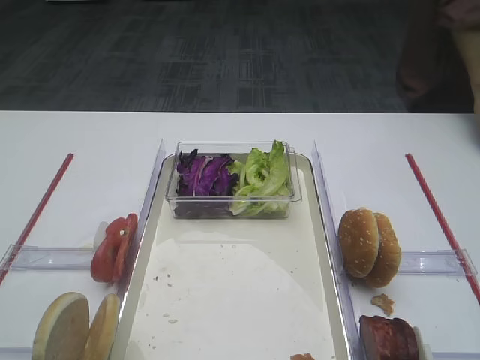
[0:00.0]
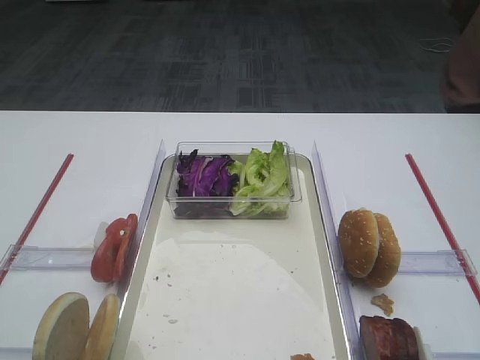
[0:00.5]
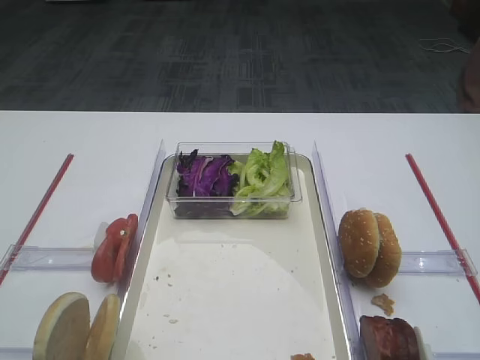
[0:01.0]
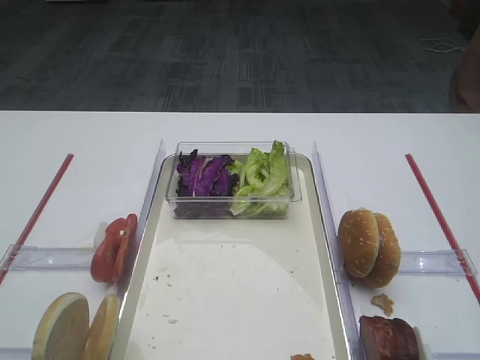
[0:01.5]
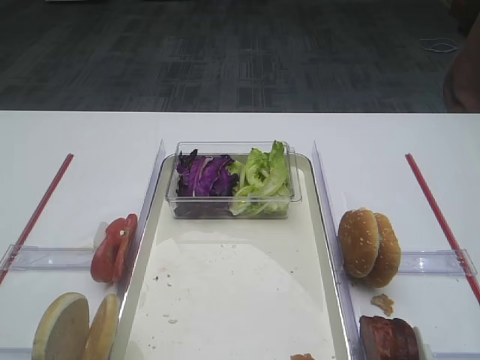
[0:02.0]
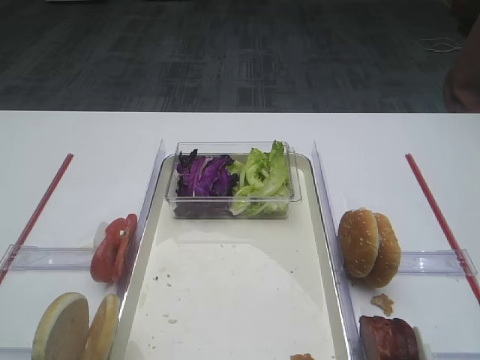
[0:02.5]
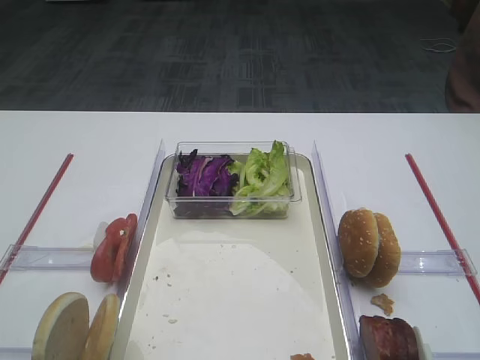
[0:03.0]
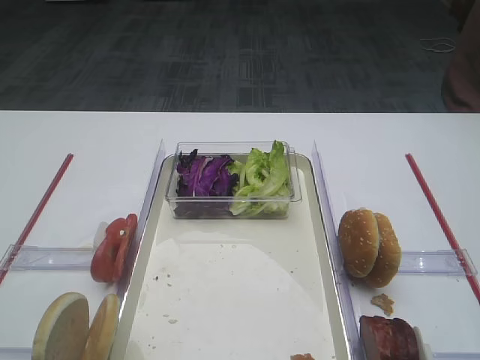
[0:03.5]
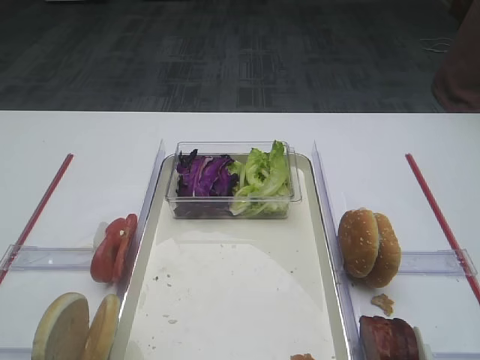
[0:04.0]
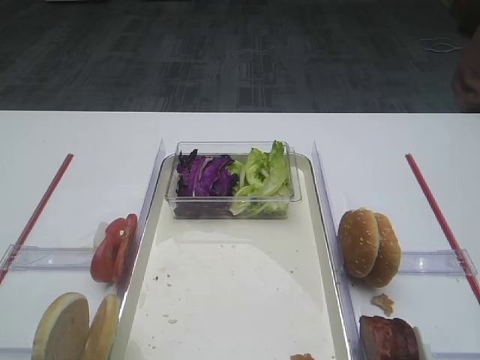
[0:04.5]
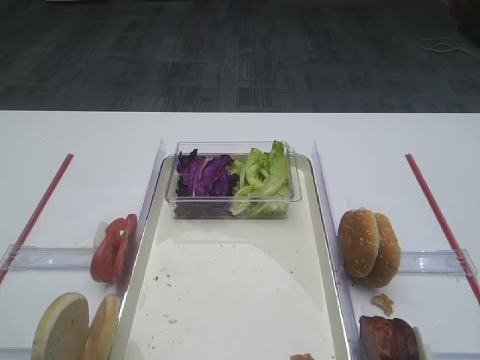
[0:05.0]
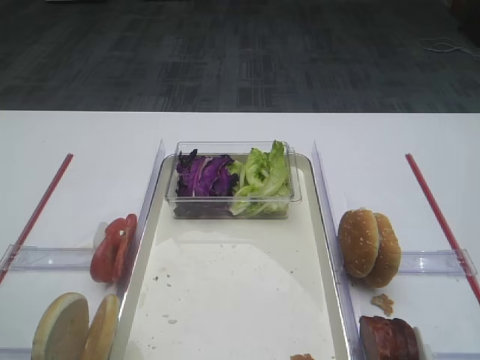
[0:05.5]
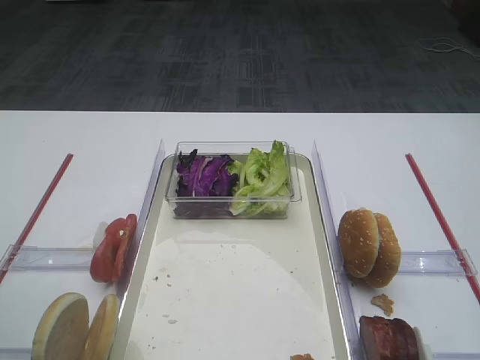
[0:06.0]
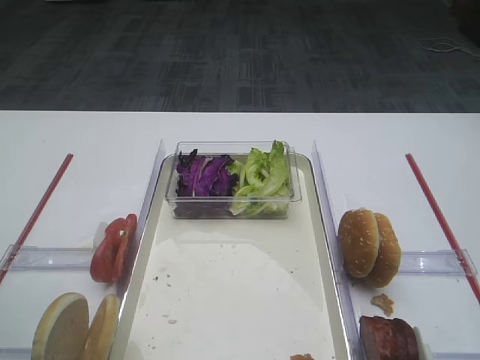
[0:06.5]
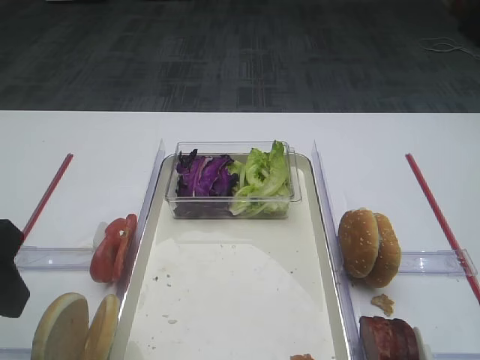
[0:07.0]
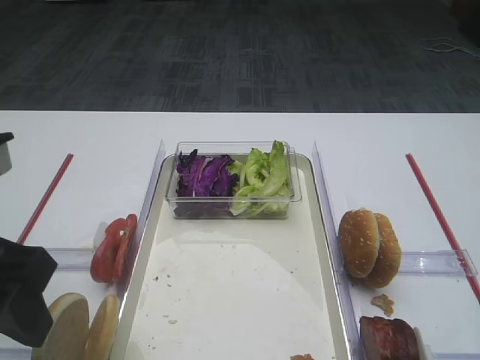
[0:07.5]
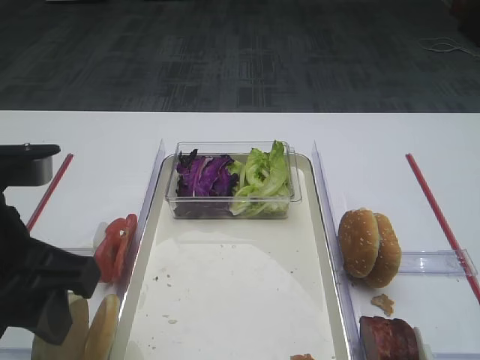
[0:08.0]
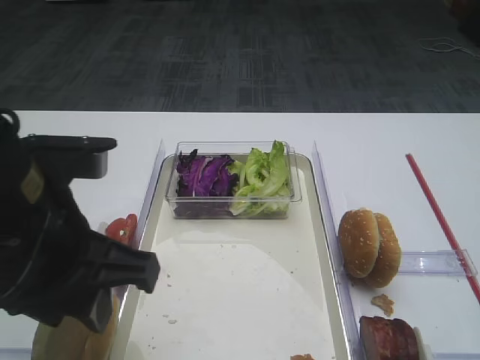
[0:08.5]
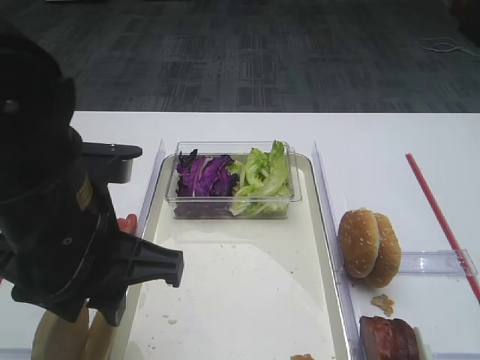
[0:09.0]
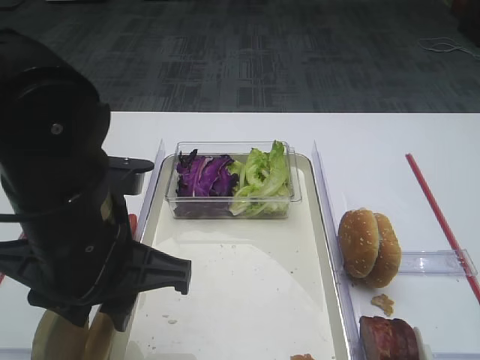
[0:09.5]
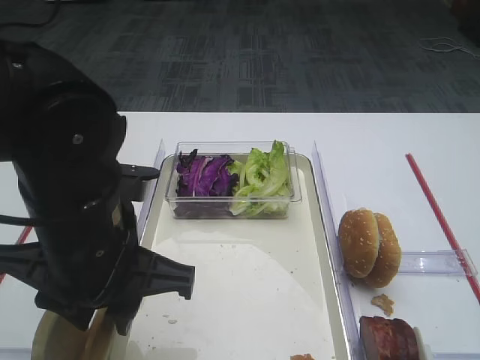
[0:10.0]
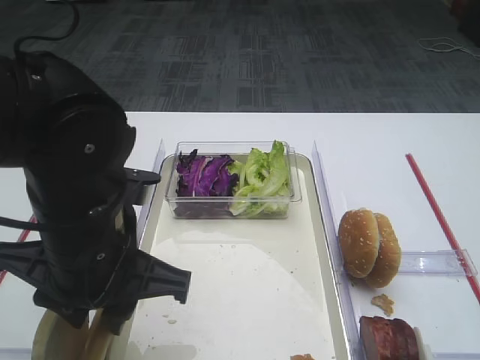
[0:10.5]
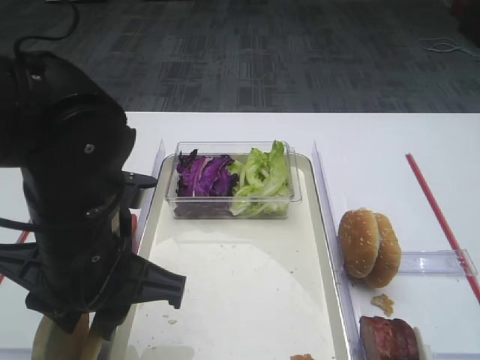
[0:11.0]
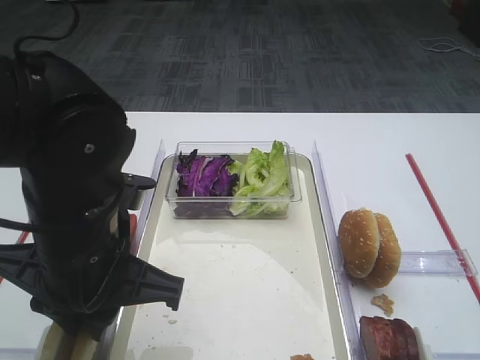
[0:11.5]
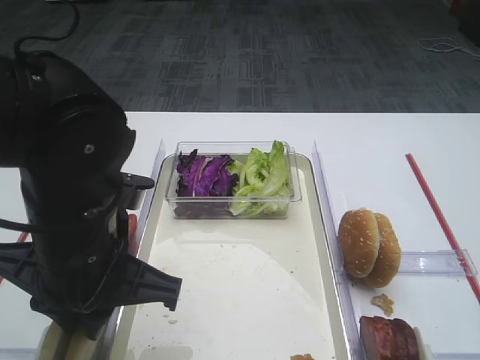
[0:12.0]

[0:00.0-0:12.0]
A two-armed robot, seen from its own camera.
0:06.0 to 0:08.0: The left gripper goes some 10 cm to the right.
0:08.0 to 0:10.0: The left gripper goes about 5 cm to the right.
0:10.0 to 0:12.0: The grippers stay close to where they were, moving slightly.

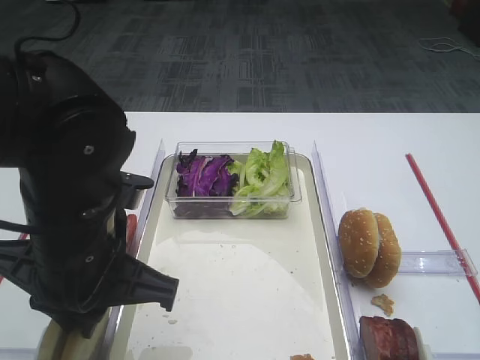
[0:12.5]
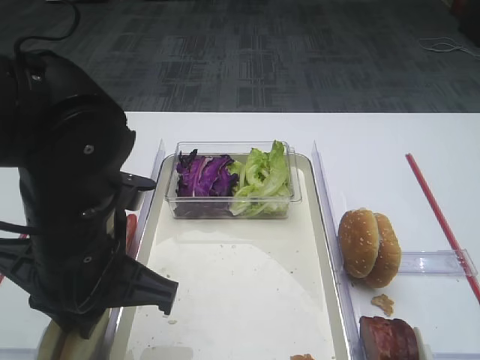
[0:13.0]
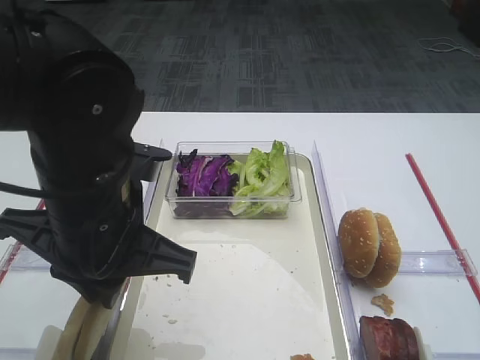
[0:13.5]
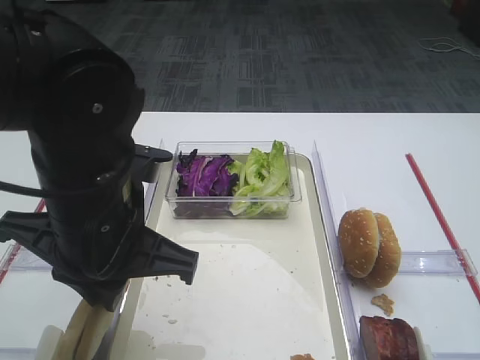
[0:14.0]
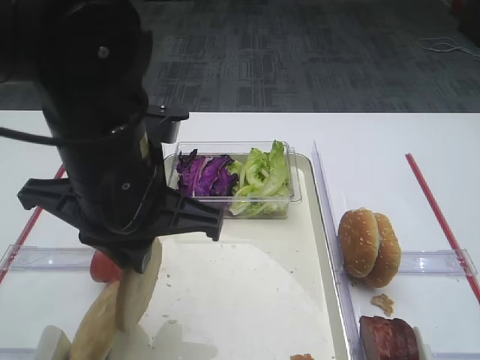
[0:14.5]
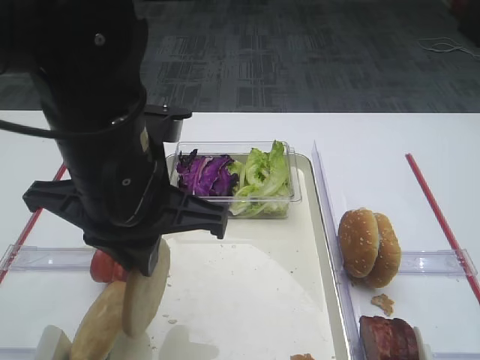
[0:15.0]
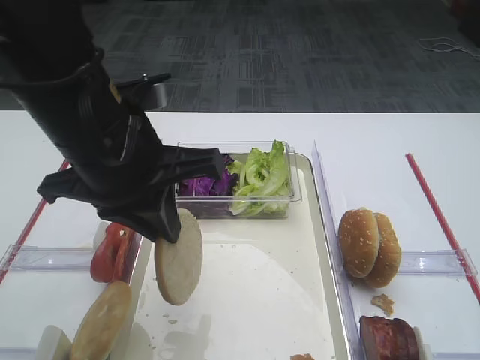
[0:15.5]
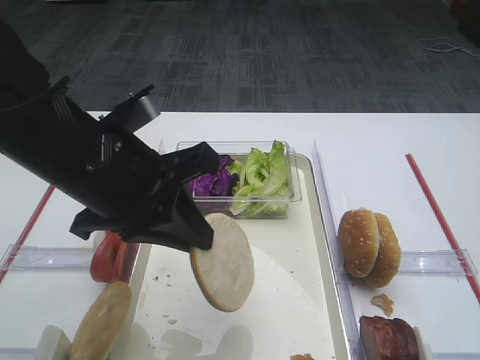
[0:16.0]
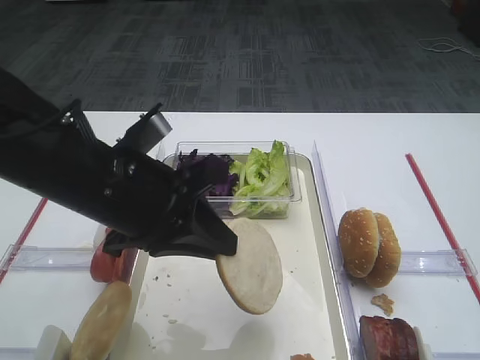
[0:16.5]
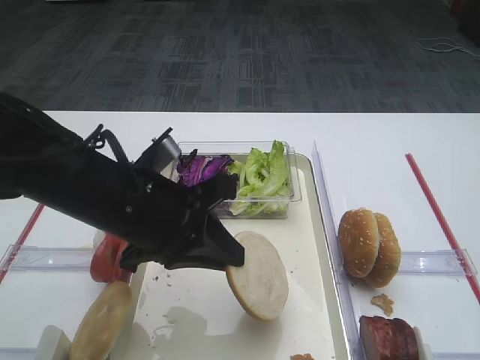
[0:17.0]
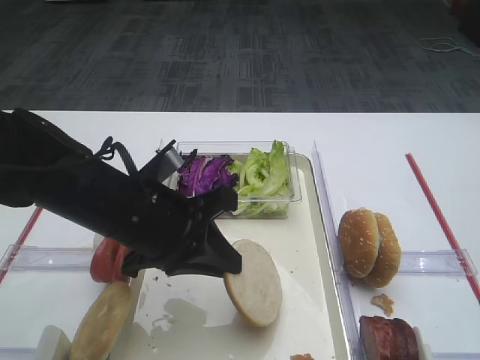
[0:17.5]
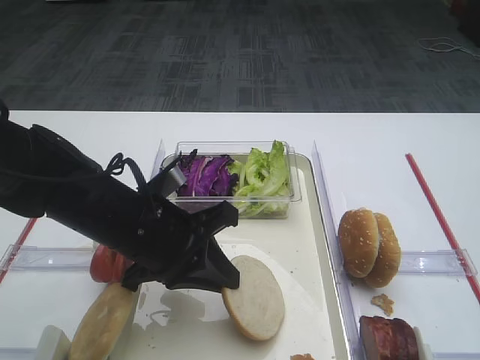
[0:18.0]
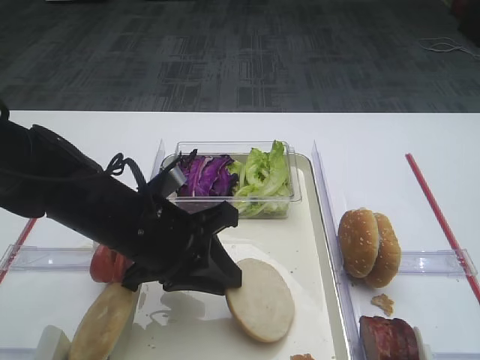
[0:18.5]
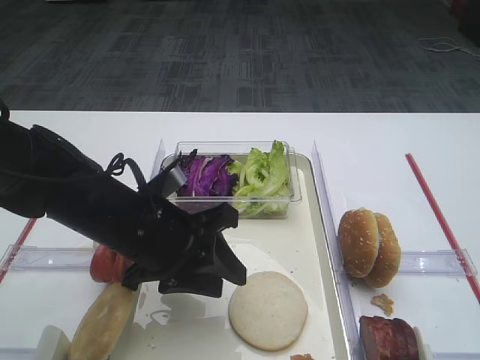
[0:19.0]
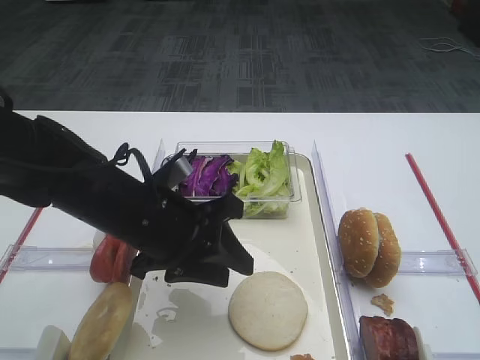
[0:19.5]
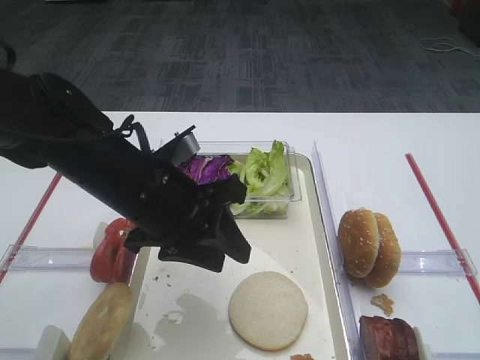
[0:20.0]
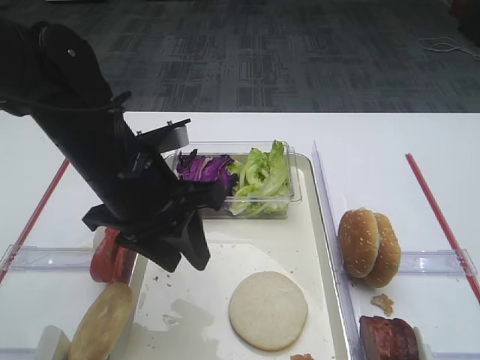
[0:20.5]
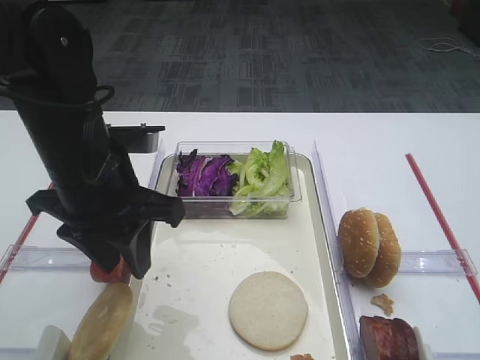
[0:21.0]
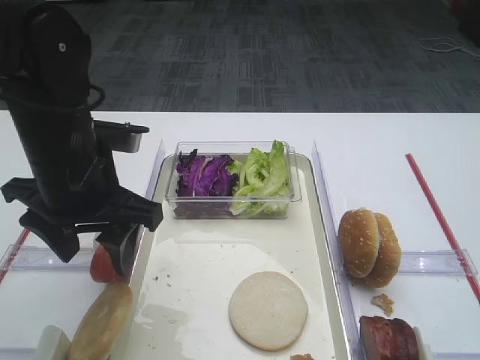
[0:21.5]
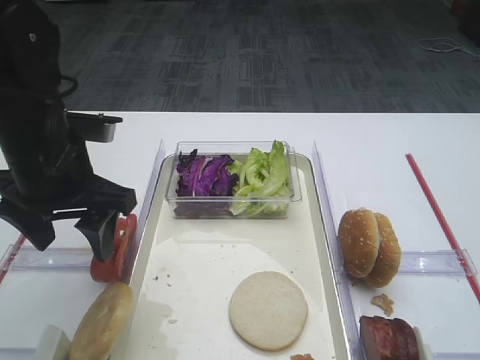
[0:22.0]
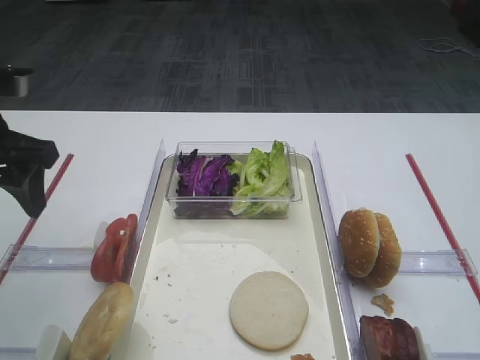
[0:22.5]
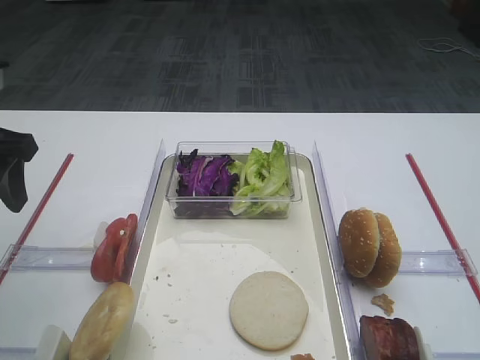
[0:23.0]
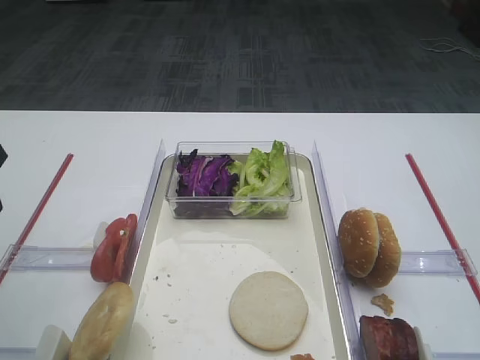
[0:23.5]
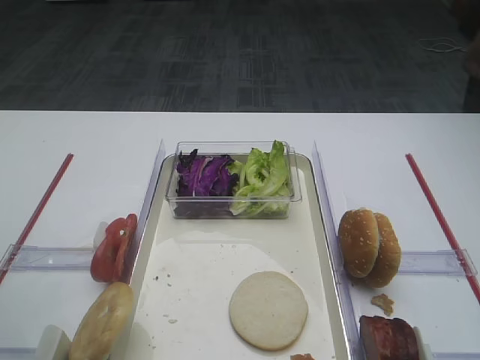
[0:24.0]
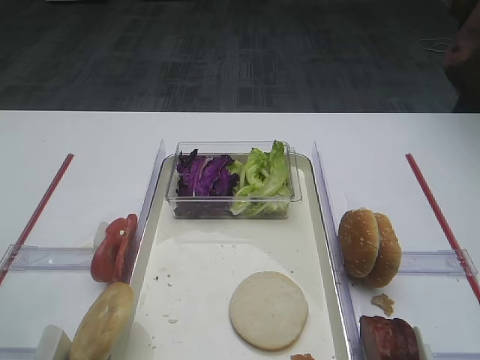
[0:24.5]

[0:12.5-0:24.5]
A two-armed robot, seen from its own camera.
Step, 0:14.5 to 0:19.5: Place the bread slice on the tray with the left gripper.
0:12.5 to 0:14.5: The left gripper shifts by about 5 cm.
0:16.5 to 0:18.5: The left gripper shifts approximately 5 cm downward.
0:18.5 to 0:20.5: The left gripper shifts some 5 cm upward.
0:20.5 to 0:22.5: The left gripper travels to the left by about 15 cm, and opens.
0:22.5 to 0:24.5: The left gripper is displaced backward and upward by roughly 15 cm.

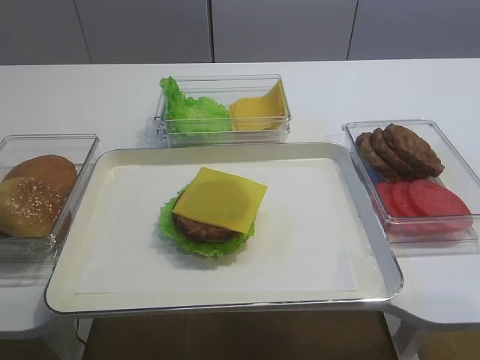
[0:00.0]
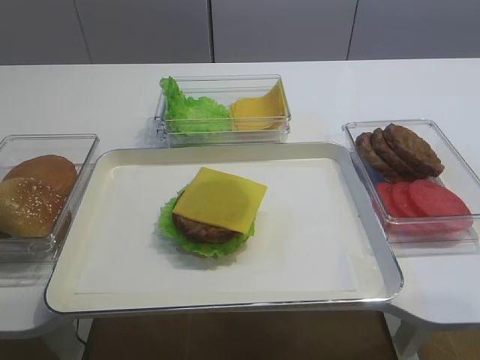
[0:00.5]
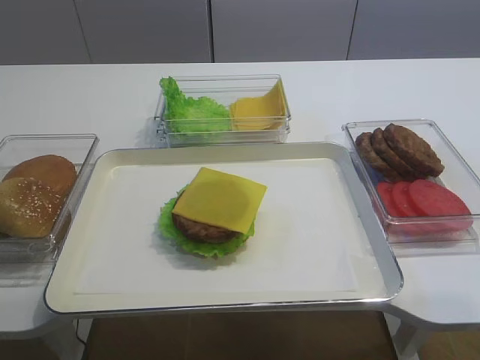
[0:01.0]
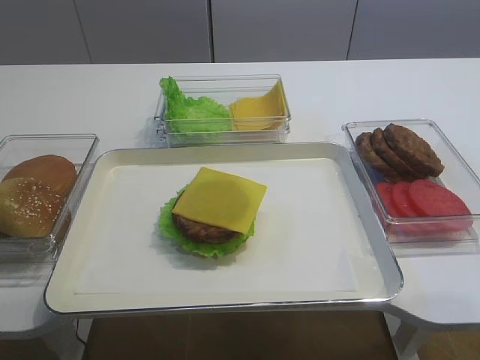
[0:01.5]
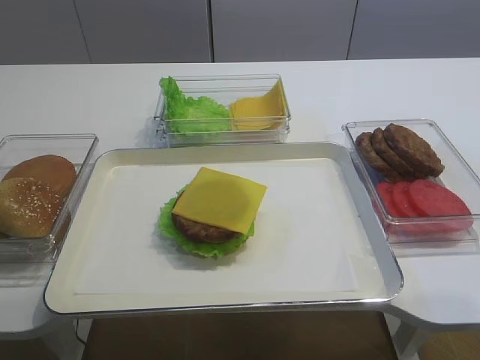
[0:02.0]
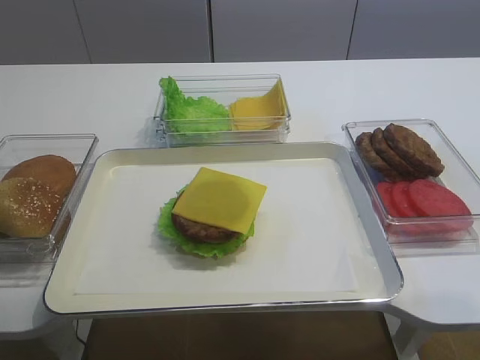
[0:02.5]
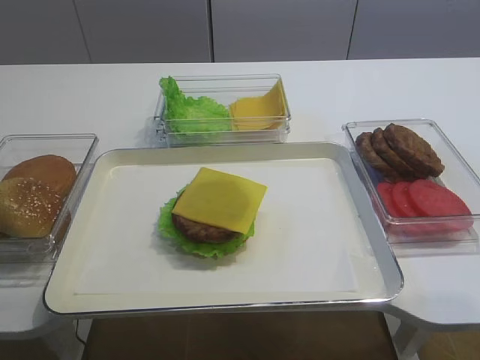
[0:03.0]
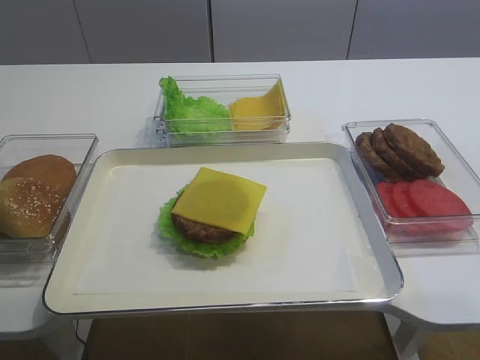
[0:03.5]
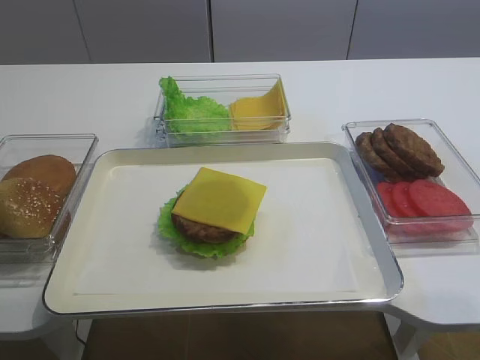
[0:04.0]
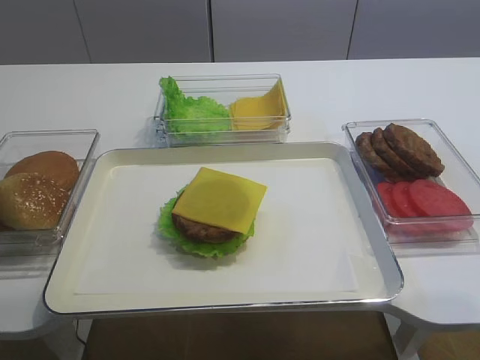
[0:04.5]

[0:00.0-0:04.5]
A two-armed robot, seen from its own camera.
0:02.0 to 0:04.5: The left gripper is displaced forward and downward by about 15 cm, and opens its fingers.
